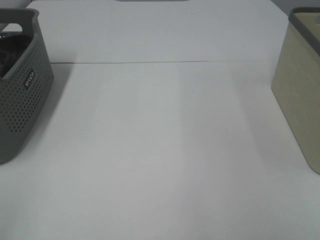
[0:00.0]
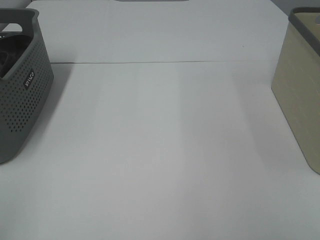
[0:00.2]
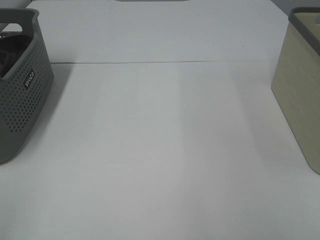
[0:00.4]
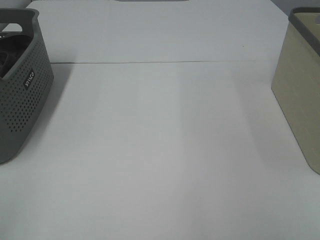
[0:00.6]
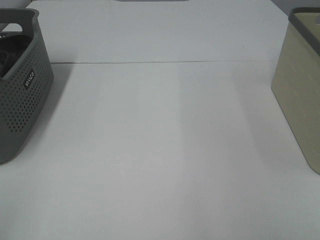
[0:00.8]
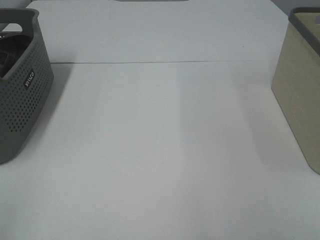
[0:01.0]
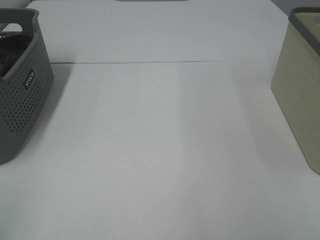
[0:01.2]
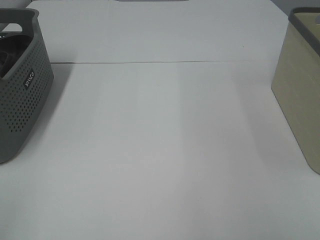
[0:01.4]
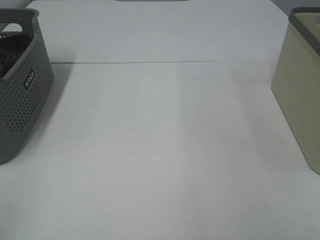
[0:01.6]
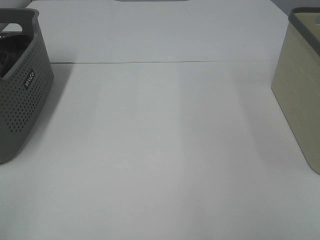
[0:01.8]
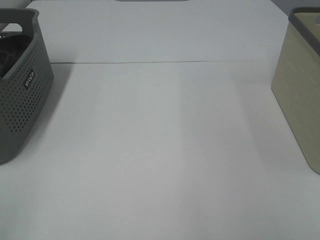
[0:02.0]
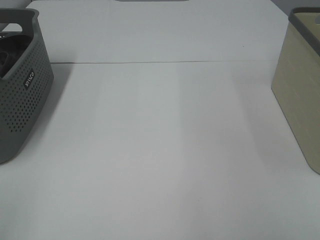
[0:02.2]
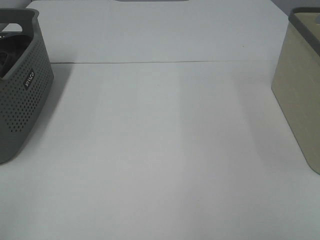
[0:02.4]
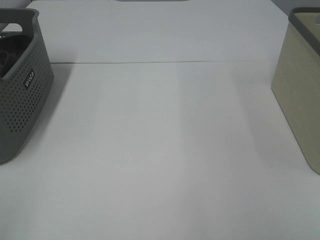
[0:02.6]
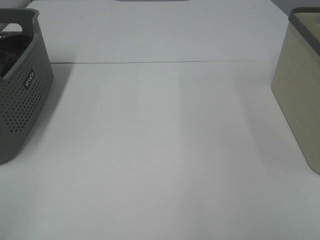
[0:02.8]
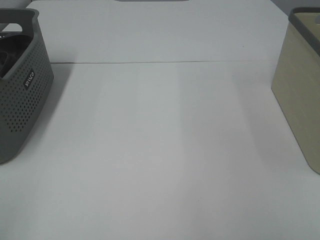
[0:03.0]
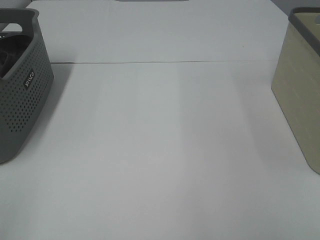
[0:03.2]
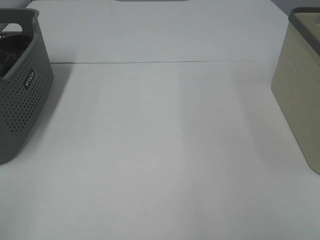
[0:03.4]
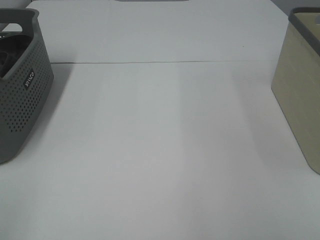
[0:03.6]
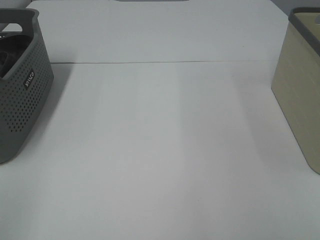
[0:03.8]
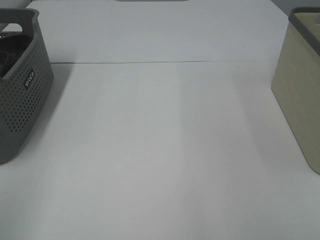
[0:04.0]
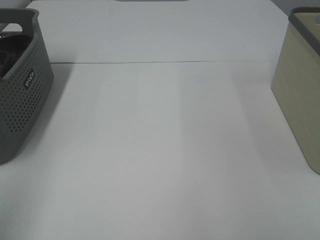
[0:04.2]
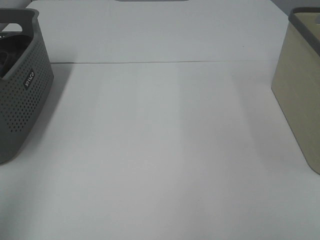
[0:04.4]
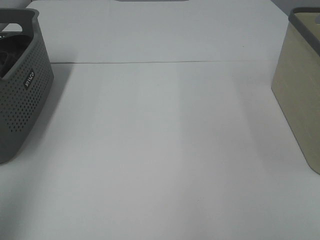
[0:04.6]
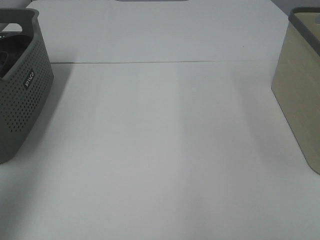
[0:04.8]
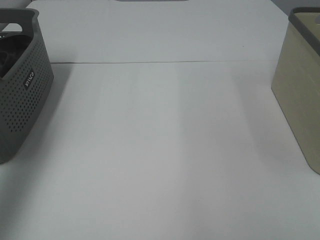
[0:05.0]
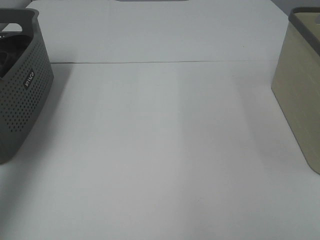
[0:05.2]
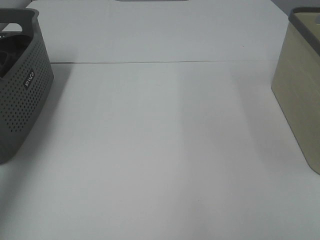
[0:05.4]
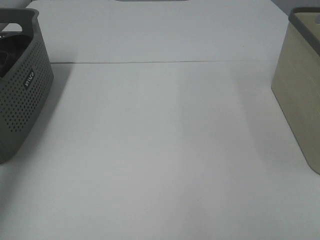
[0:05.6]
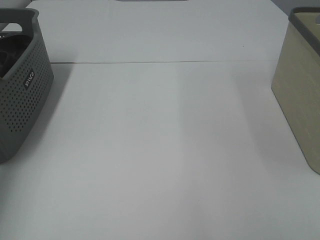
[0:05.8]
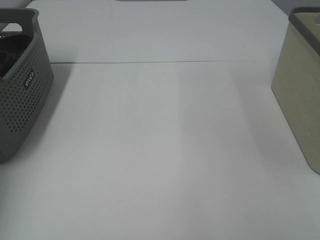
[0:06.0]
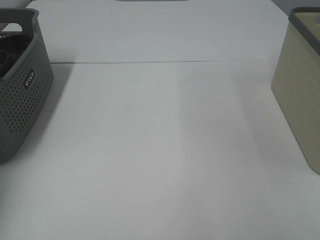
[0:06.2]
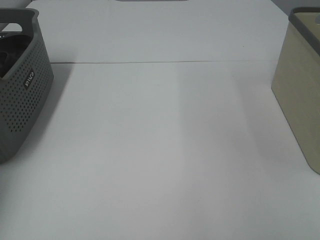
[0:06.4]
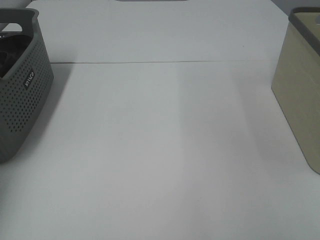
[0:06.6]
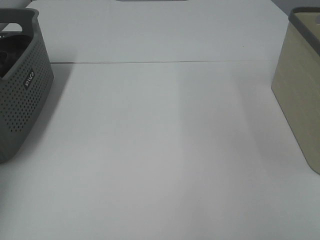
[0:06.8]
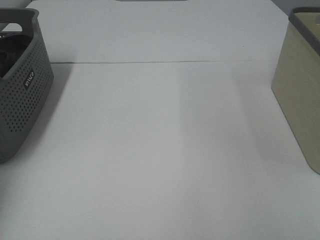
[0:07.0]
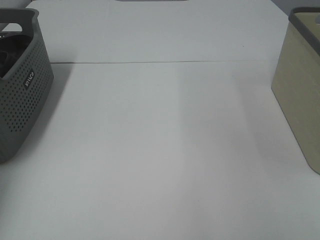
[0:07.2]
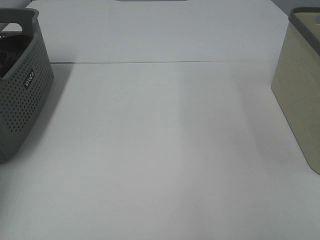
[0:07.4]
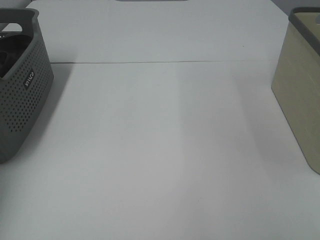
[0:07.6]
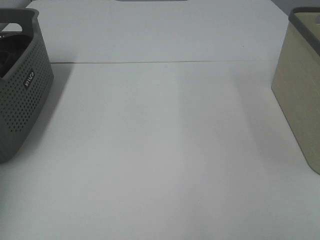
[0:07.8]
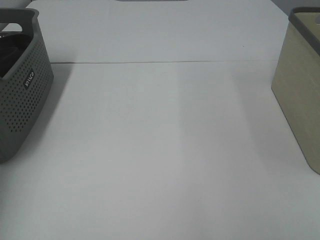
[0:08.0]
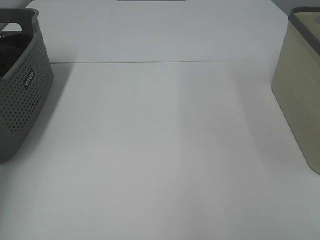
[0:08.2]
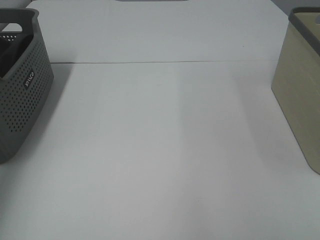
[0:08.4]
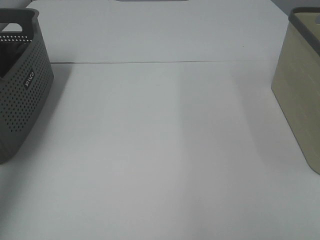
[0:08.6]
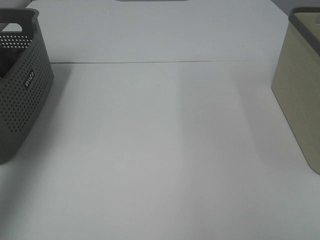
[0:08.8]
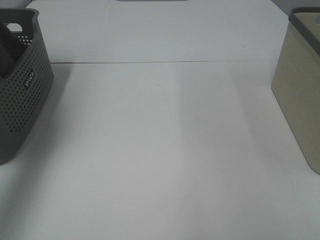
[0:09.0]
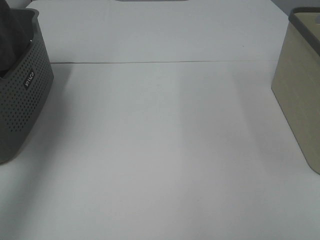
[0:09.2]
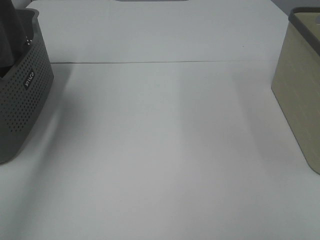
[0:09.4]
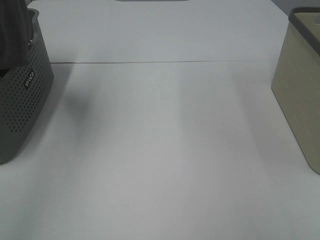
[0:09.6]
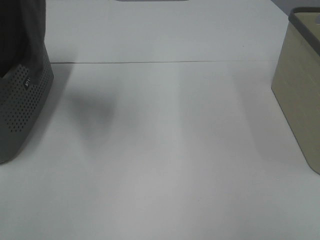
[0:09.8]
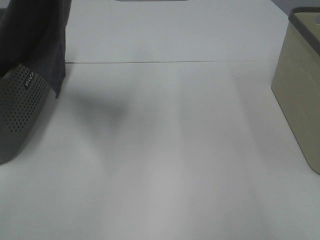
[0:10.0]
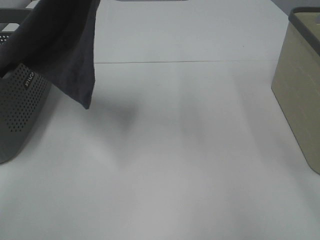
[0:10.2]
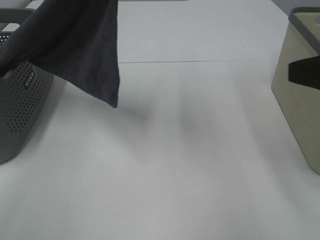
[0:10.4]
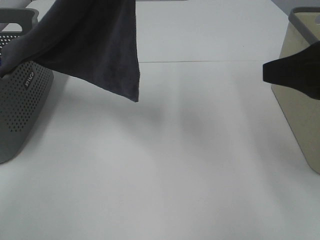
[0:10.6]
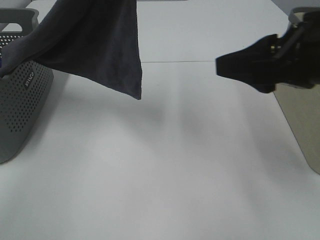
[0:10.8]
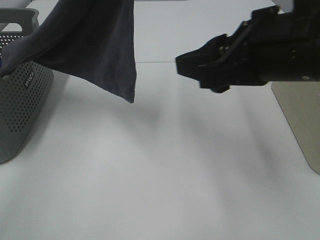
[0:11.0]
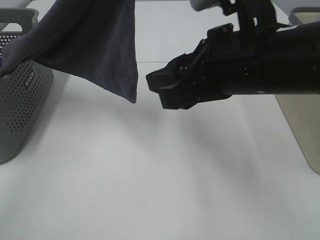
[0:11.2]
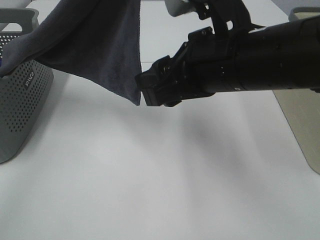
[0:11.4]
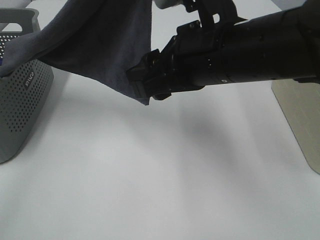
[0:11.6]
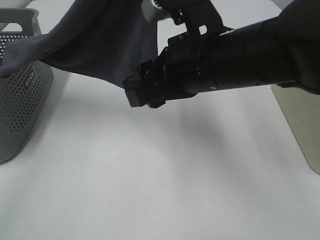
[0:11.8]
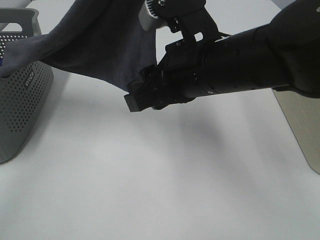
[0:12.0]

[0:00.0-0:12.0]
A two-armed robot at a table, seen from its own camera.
Task of the whole recording: Remove the towel and place it.
0:00.0 to 0:03.0: The two grippers keep their place.
0:03.0 to 0:04.4: The left gripper moves forward and upward, about 15 cm.
0:04.4 to 0:06.0: The left gripper heads forward and downward, covering roughly 35 cm.
0:07.6 to 0:09.0: The left gripper moves upward, roughly 25 cm.
0:09.0 to 0:10.4: The left gripper is displaced to the right by about 25 cm, while the right gripper moves forward, roughly 15 cm.
0:10.4 to 0:12.0: The right gripper moves to the left and forward, roughly 20 cm.

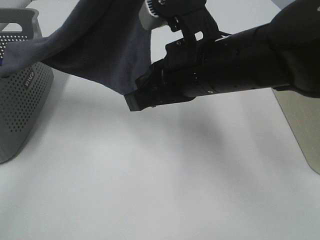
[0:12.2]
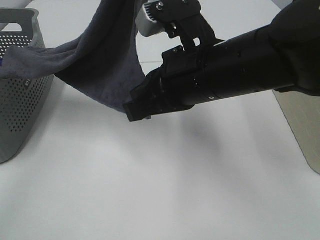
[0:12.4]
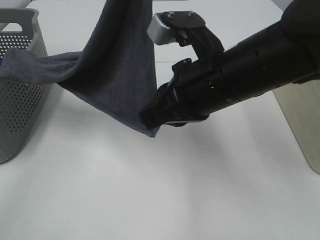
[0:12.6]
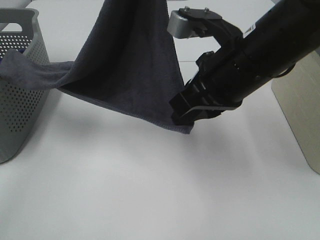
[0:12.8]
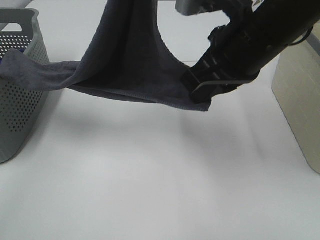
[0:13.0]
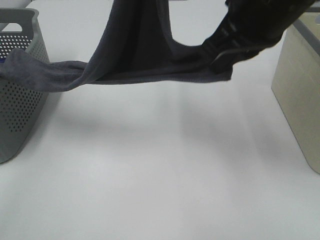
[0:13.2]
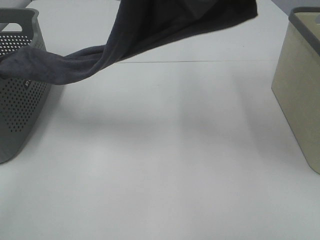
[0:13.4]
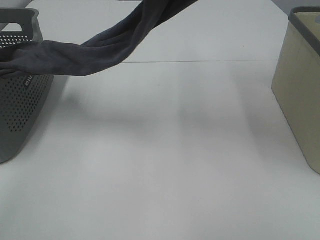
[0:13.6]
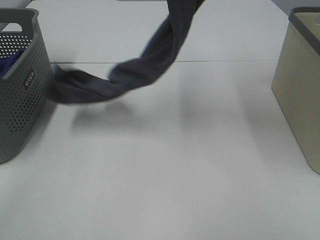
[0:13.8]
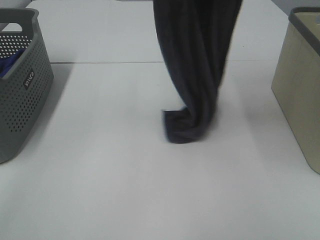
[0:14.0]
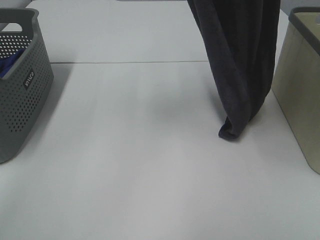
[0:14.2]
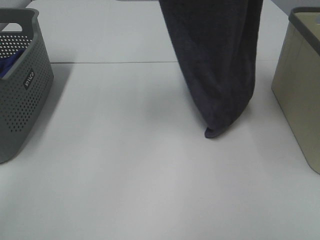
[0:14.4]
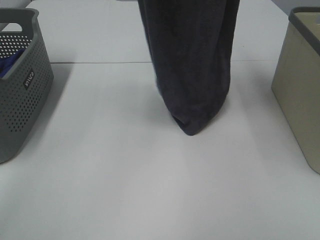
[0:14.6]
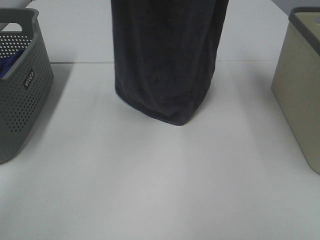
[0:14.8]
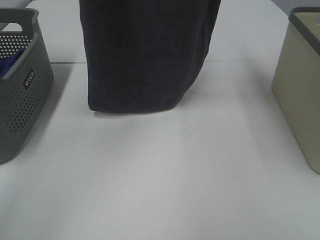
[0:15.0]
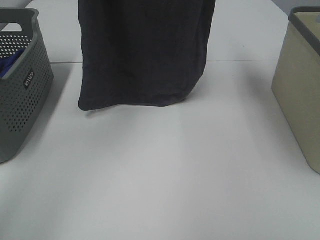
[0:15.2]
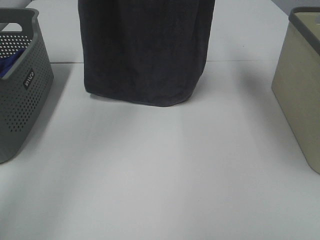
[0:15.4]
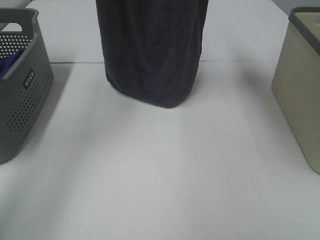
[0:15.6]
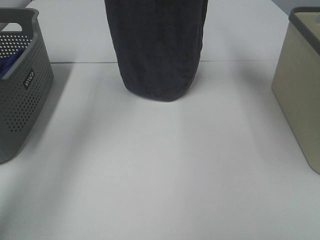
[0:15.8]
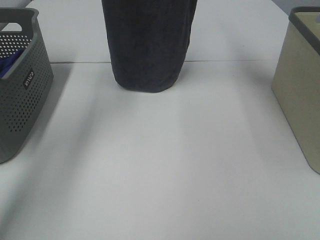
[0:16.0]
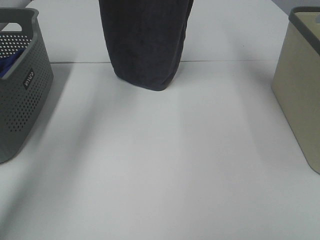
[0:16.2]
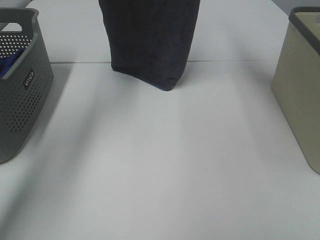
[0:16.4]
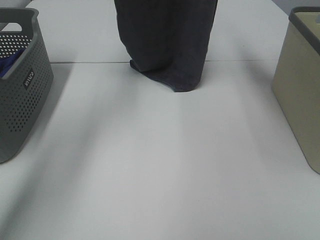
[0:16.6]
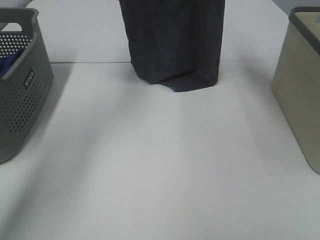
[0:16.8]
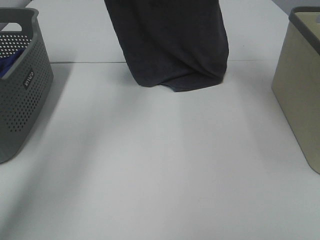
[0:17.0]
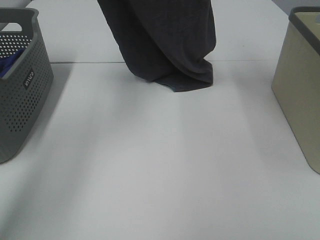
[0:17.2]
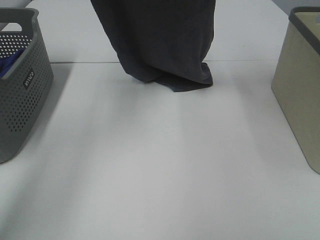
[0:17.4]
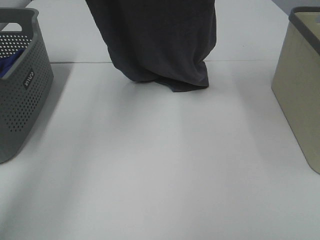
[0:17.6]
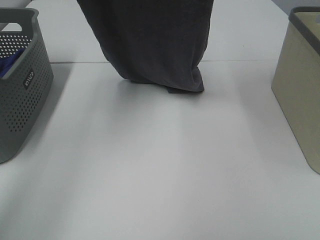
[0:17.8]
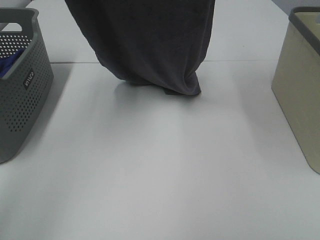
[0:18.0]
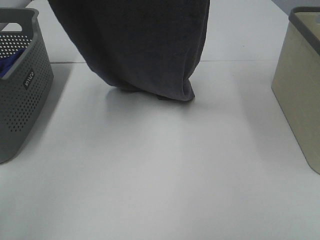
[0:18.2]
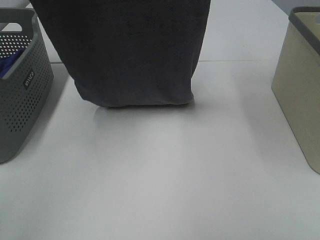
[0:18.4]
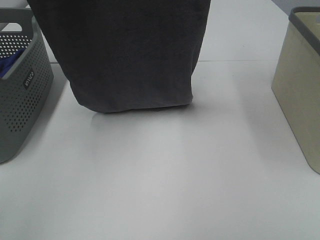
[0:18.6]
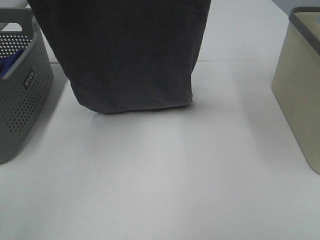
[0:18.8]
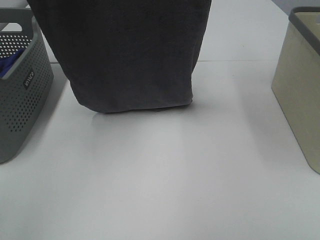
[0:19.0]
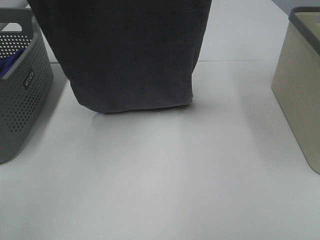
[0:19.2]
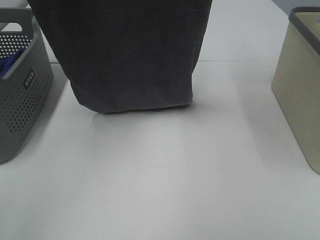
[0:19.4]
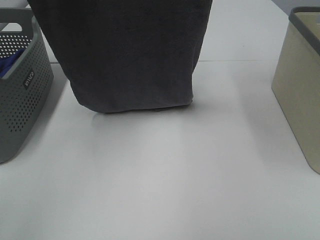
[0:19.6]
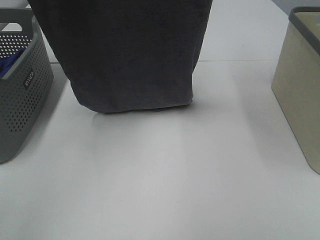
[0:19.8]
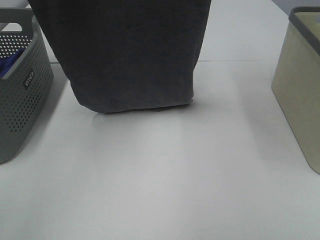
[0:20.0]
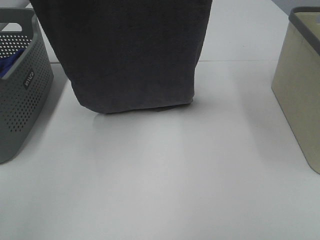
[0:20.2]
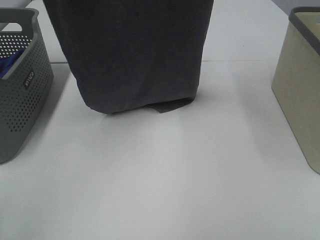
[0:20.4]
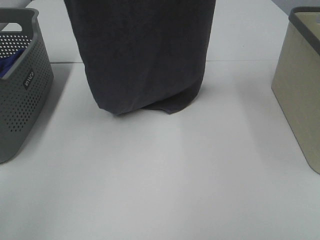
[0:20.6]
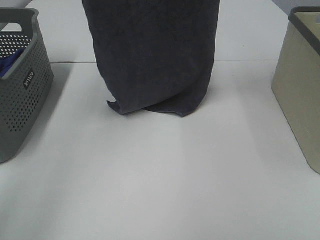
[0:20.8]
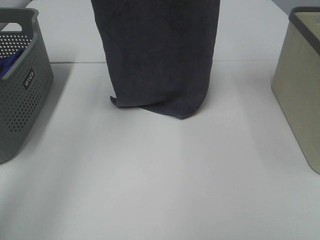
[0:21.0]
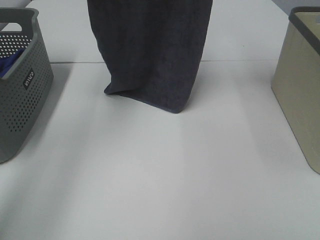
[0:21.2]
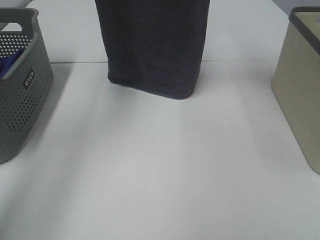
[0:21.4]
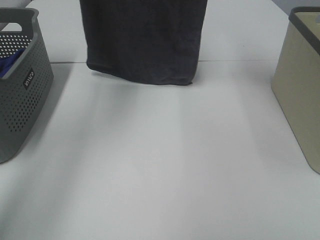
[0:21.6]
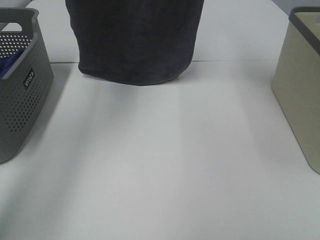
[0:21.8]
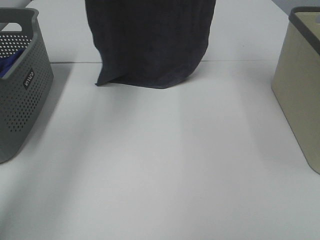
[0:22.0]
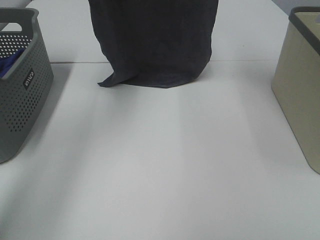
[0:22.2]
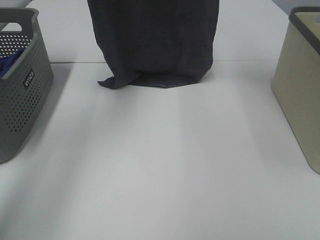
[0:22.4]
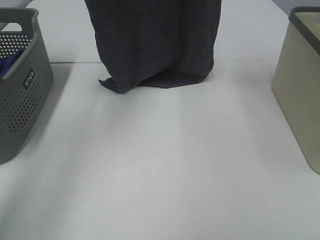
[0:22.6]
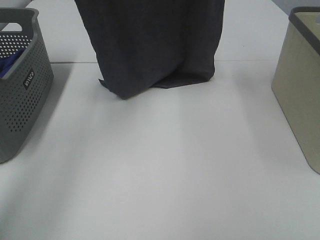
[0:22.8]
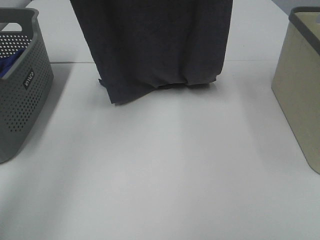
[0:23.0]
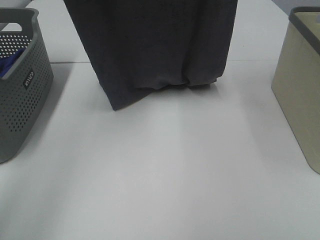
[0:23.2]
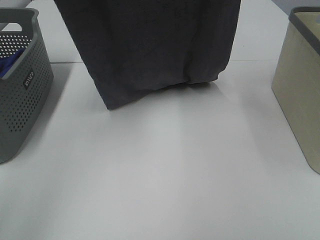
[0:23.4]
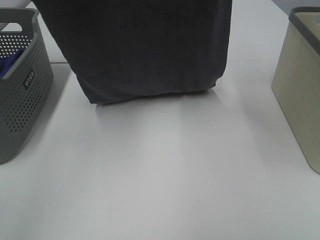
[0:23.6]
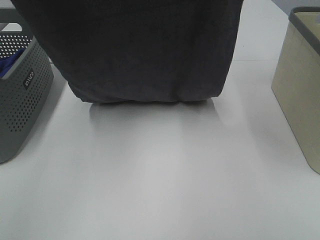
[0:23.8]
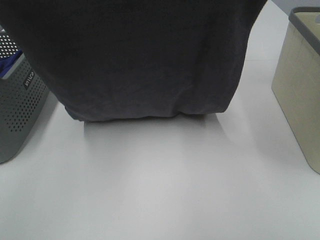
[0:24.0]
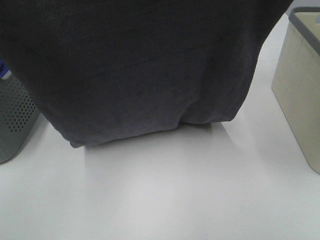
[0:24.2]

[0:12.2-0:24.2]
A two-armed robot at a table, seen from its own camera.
Task of the whole recording: Remove the towel and place it.
Step, 0:12.8 to 0:23.4: Left hand: spread the grey towel flat on the table.
Step, 0:12.8 to 0:23.4: Right hand: spread the grey towel flat on the table.
0:12.2 to 0:13.8: The right gripper moves upward, approximately 25 cm.
0:13.8 to 0:15.2: The right gripper travels forward by approximately 5 cm. Meanwhile the left gripper goes approximately 15 cm forward and to the left.
0:15.2 to 0:16.6: The left gripper moves forward and downward, roughly 15 cm. The right gripper shifts approximately 10 cm forward.
0:16.6 to 0:18.2: The left gripper heads backward, covering some 20 cm. Meanwhile the right gripper heads backward, covering roughly 10 cm.
0:18.2 to 0:19.8: The grippers stay close to where they were, moving slightly.
0:19.8 to 0:21.2: The two grippers go approximately 10 cm forward.
0:22.6 to 0:24.2: The two grippers go roughly 20 cm backward.
